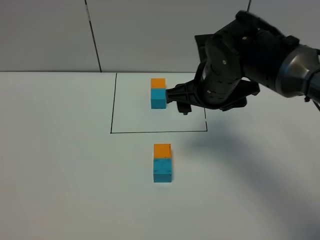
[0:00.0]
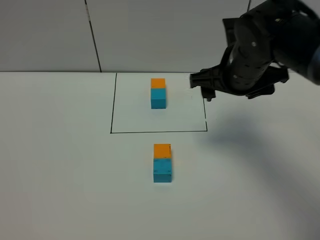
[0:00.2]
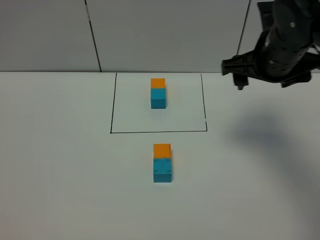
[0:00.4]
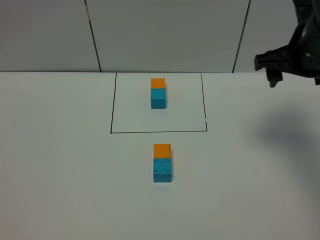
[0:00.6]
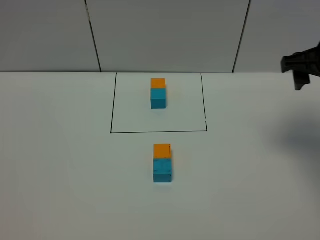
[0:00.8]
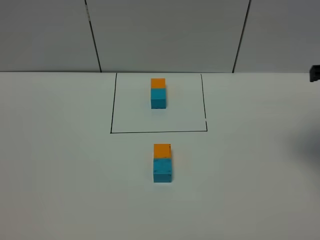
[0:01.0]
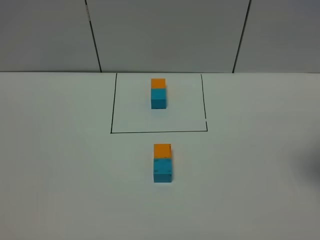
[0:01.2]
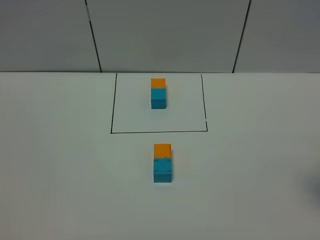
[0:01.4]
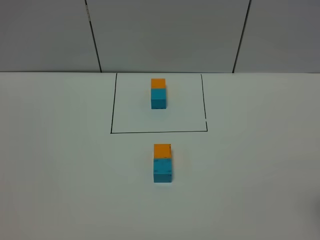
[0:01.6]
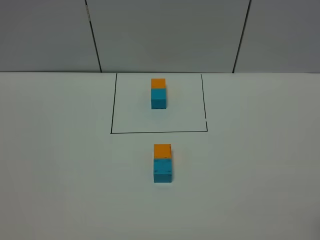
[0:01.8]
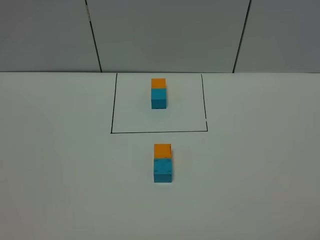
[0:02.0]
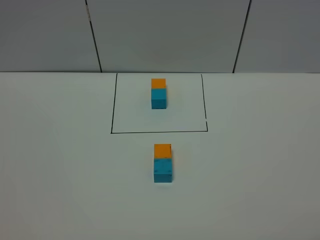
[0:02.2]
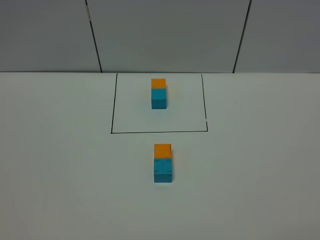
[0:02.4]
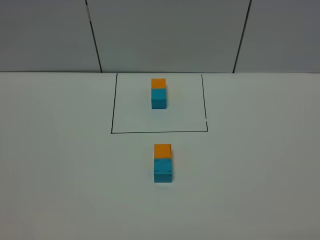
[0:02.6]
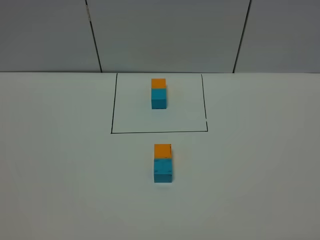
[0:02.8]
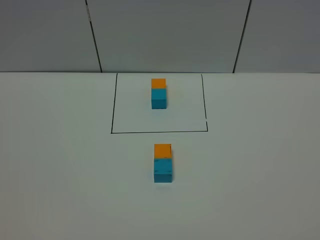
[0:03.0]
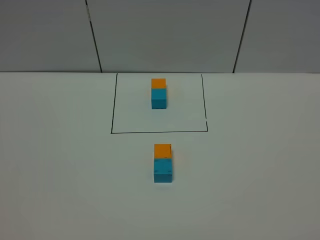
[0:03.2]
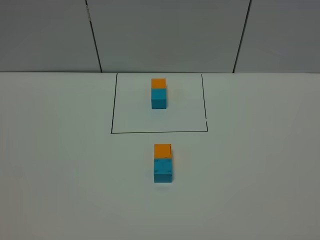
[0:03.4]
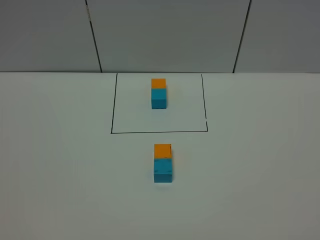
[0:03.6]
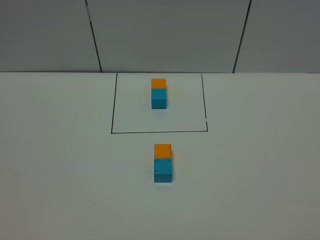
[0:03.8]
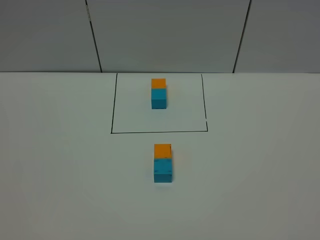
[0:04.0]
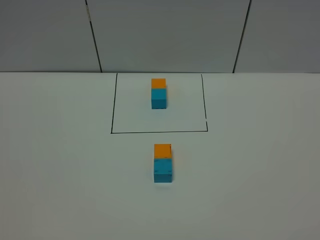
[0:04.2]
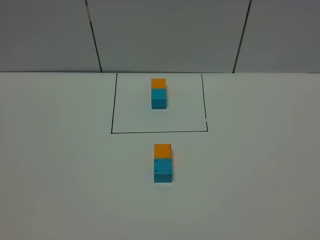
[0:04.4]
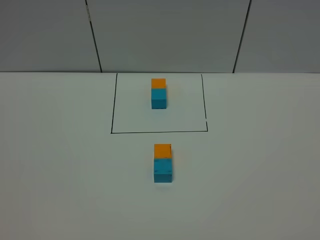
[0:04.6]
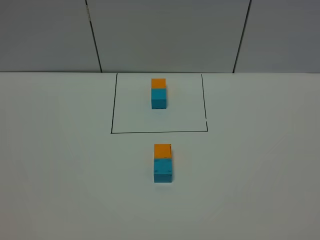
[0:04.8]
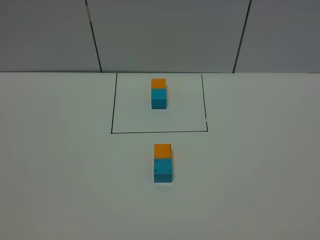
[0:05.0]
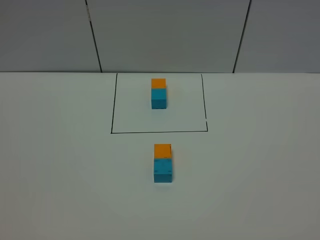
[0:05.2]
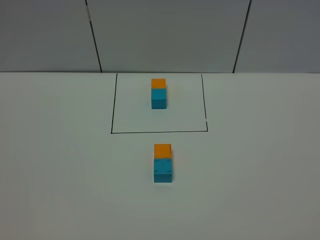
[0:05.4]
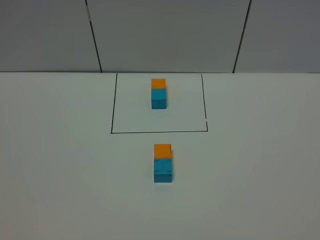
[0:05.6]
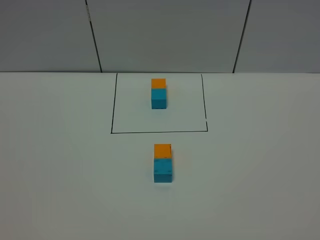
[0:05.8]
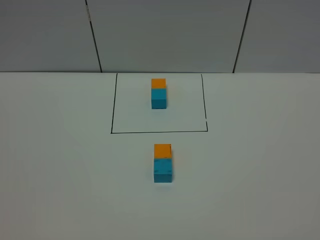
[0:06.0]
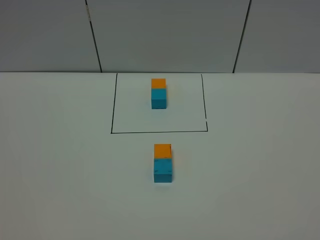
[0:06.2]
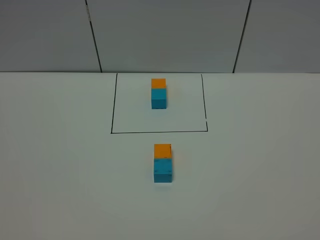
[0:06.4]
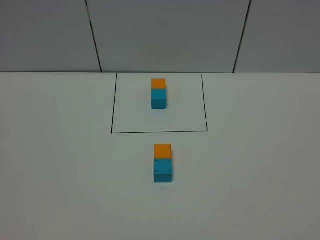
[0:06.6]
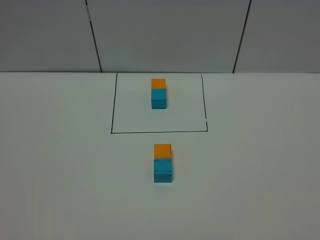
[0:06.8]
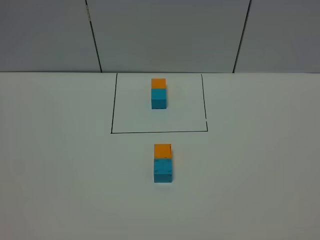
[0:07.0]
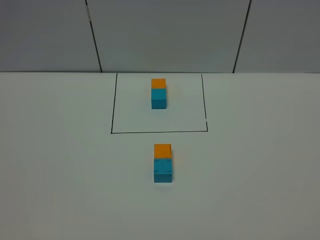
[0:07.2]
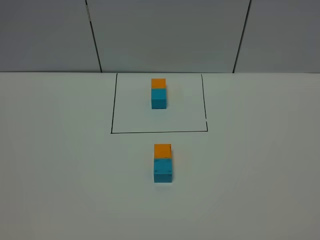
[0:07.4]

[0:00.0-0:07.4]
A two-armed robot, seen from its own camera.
Task of the whole recording: According to the building block template in front, assemble the scattered blocks together.
0:00.0 to 0:01.4: The right gripper goes some 25 cm to the right and backward.
0:04.4 to 0:07.4: Both grippers stay about where they are.

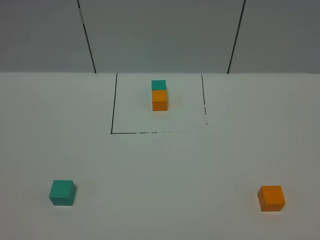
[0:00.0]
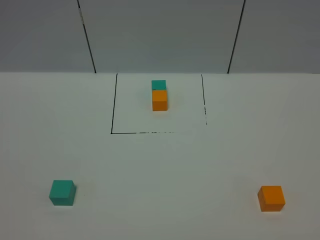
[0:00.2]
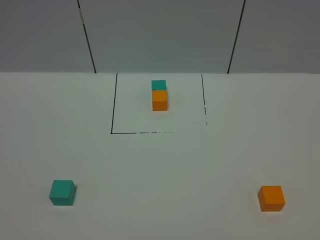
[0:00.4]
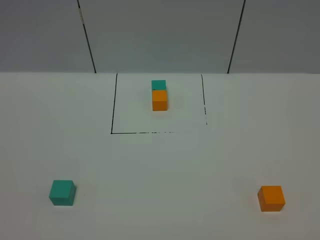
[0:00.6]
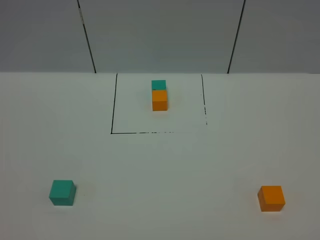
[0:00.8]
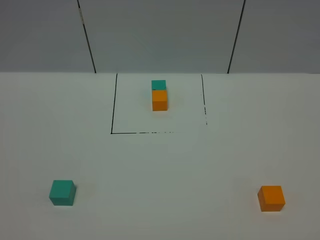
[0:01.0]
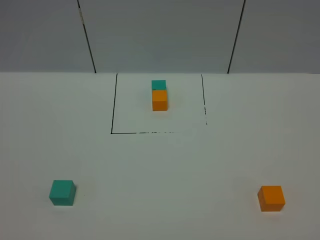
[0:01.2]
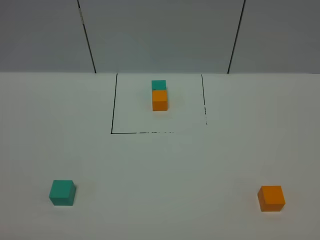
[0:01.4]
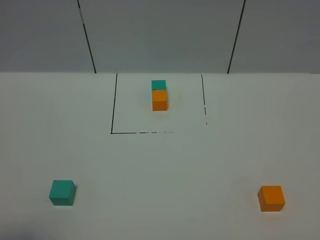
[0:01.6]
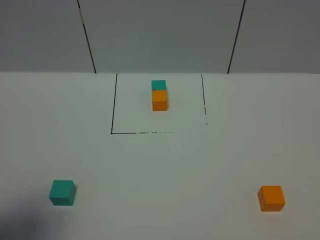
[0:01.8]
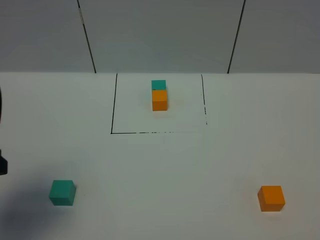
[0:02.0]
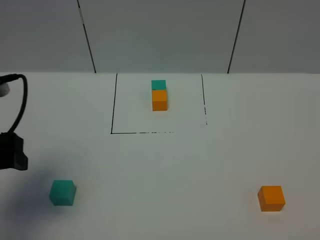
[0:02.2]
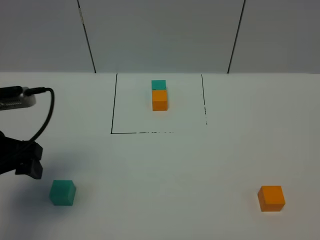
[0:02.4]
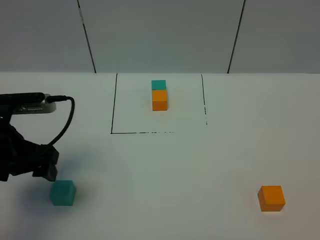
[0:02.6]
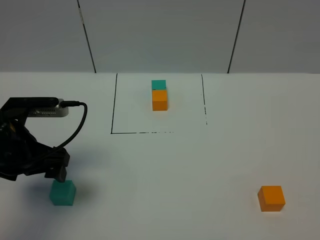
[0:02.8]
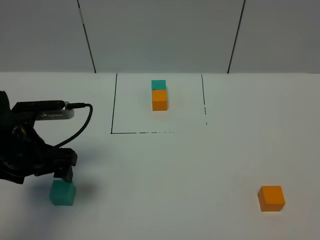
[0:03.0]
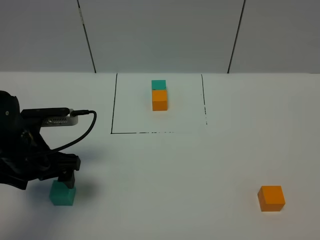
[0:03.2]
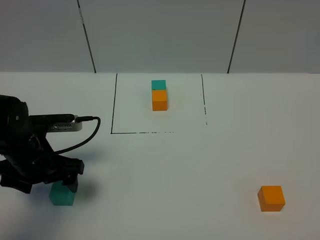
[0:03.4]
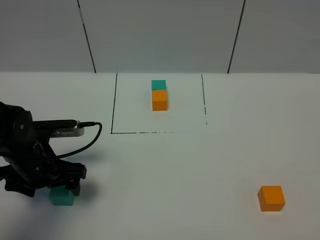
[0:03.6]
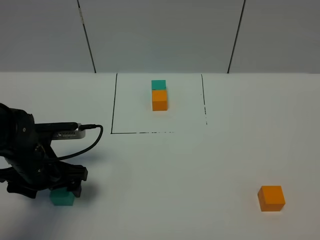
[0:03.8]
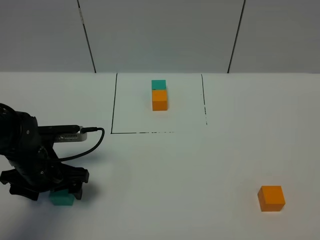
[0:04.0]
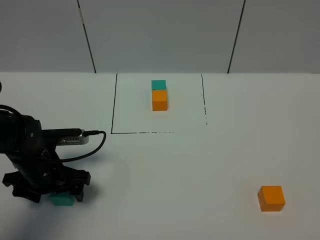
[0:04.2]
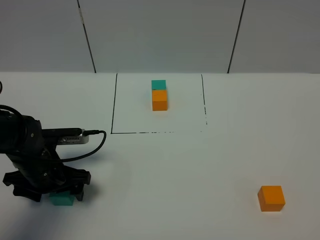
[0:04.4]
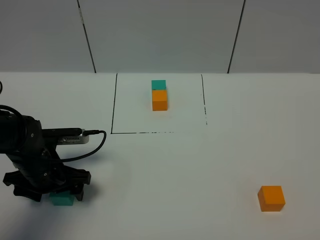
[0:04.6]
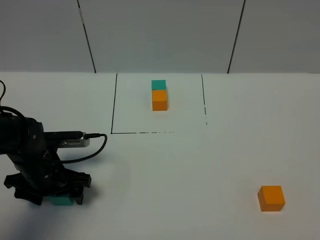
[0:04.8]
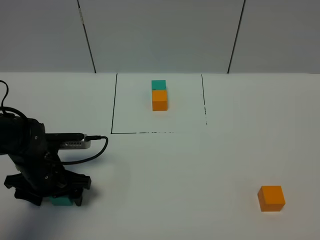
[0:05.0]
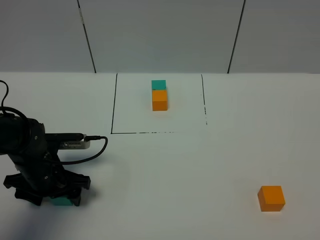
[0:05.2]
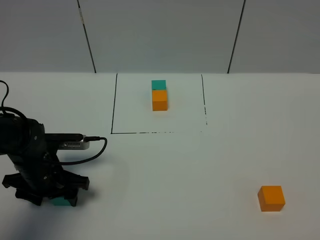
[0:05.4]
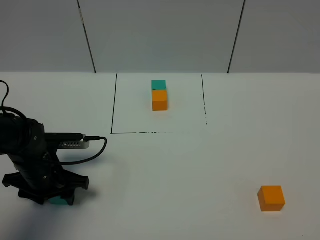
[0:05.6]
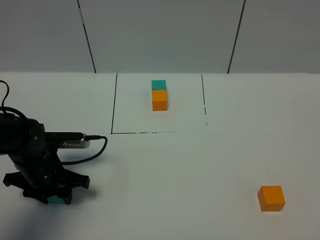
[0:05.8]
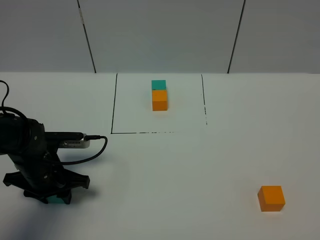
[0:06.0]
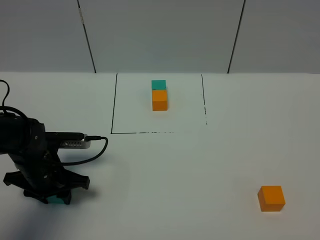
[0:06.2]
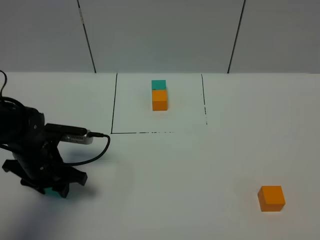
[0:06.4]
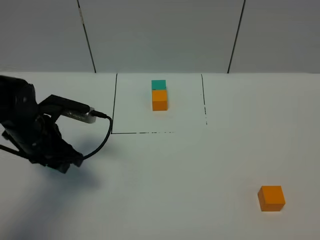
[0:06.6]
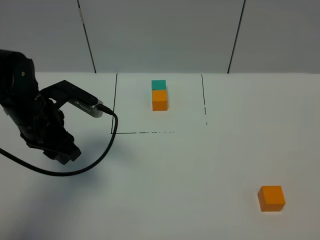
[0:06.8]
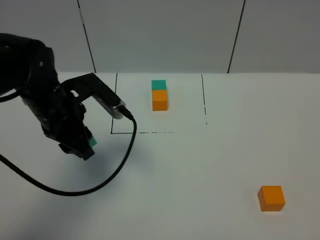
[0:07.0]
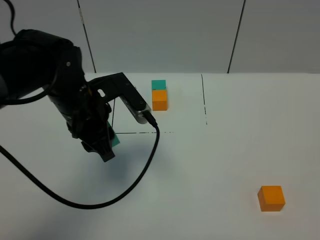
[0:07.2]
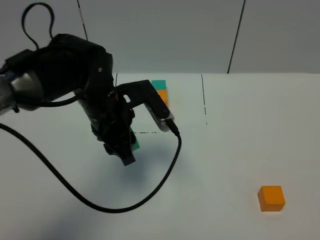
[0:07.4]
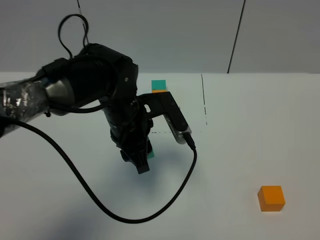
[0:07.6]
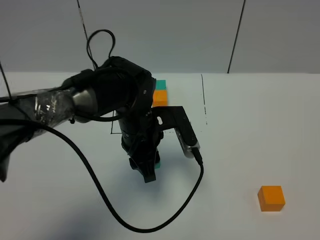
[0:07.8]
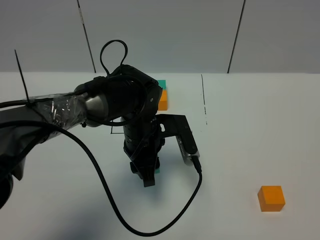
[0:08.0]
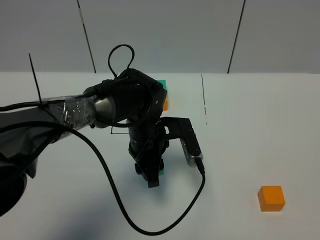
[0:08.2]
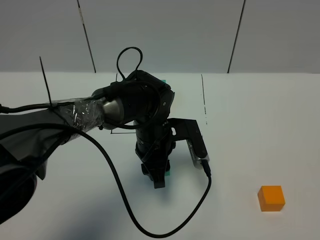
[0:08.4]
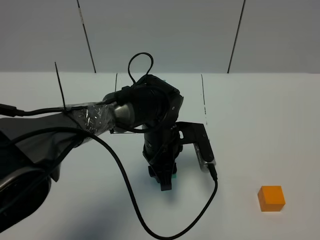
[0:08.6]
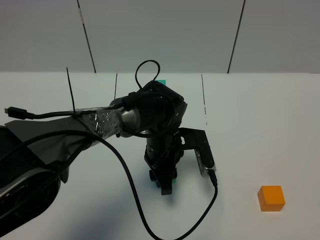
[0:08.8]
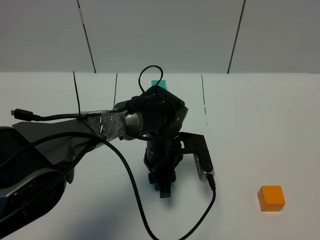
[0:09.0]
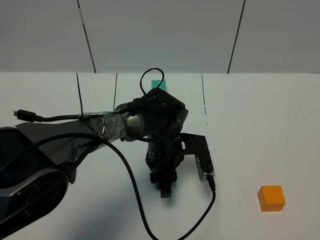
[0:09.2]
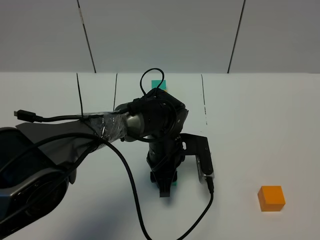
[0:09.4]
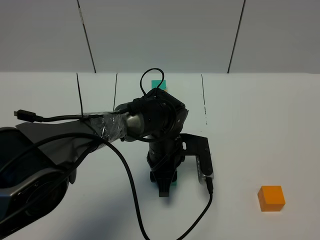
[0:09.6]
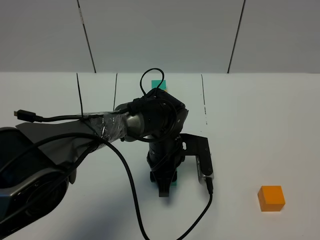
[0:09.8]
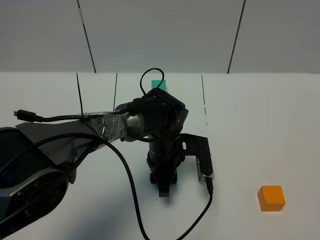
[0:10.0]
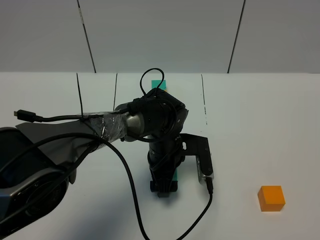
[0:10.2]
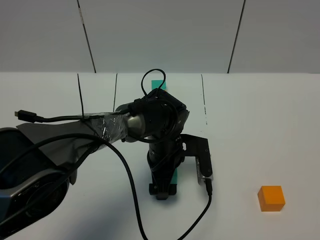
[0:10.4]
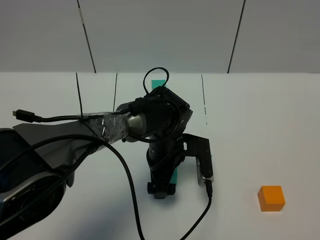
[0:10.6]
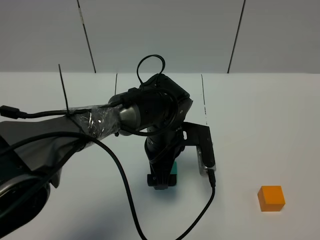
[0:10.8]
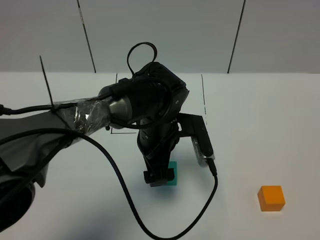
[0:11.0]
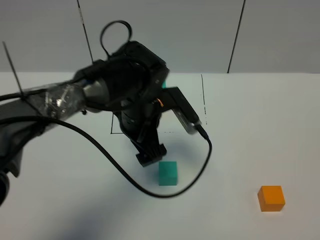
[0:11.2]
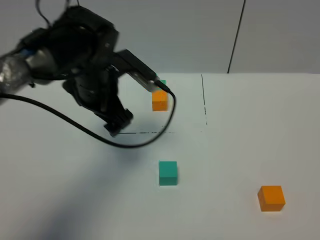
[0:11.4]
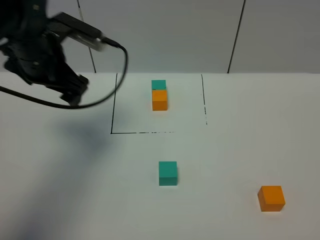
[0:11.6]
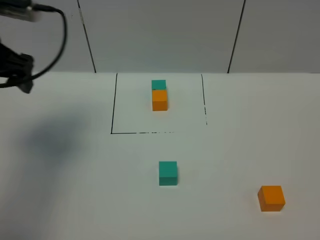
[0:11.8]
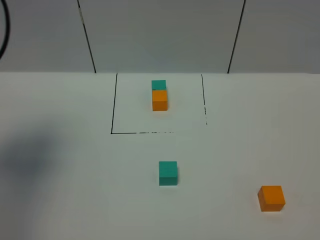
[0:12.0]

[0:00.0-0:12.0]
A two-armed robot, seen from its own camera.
Task of the whole recording: According to the building block template in front, assemble the scattered blocks together.
Step, 0:02.0 to 0:10.0: Put the green cube in the center of the table.
0:01.6 to 0:03.0: The left gripper heads forward and downward, covering about 25 cm.
0:03.0 to 0:04.4: The left gripper goes about 10 cm downward.
0:04.4 to 0:06.0: The left gripper closes.
0:06.0 to 0:07.6: The left gripper heads to the right and upward, covering approximately 20 cm.
0:07.6 to 0:09.0: The left gripper goes approximately 10 cm downward and to the right.
0:09.0 to 0:10.4: The left gripper opens.
0:10.4 to 0:12.0: The left gripper shifts some 40 cm to the left and upward.

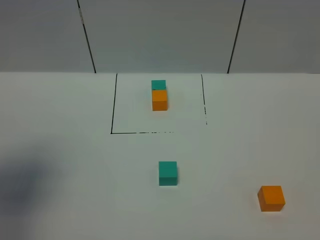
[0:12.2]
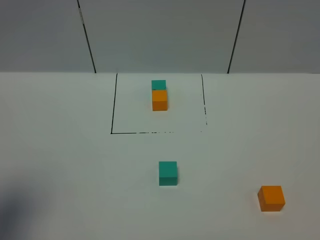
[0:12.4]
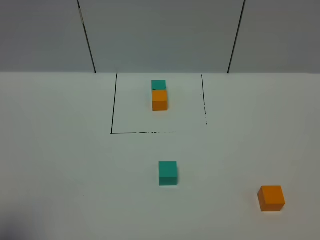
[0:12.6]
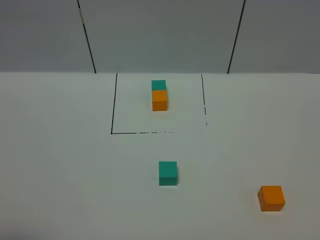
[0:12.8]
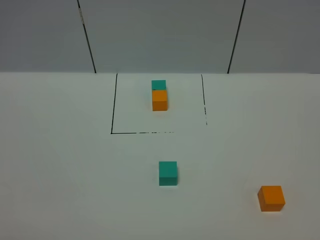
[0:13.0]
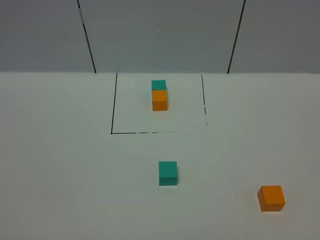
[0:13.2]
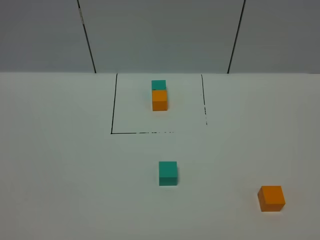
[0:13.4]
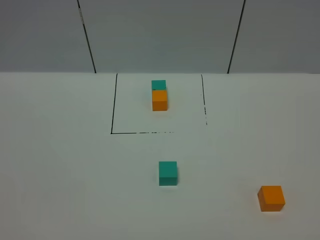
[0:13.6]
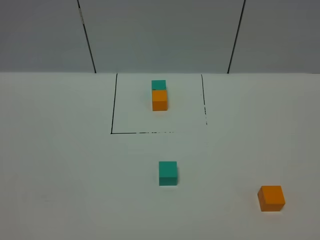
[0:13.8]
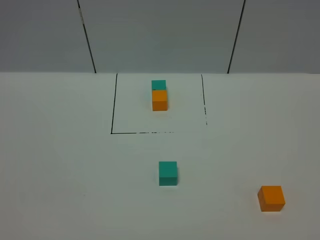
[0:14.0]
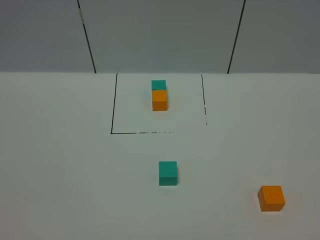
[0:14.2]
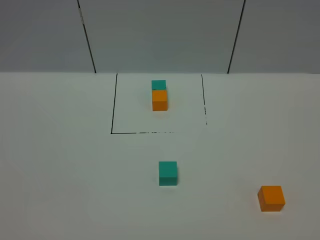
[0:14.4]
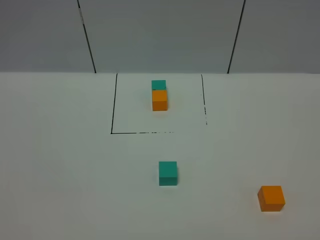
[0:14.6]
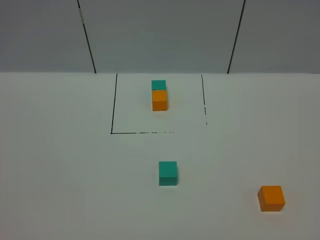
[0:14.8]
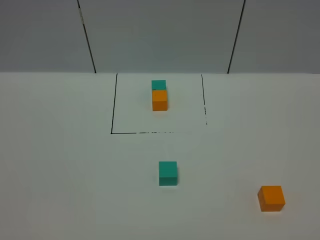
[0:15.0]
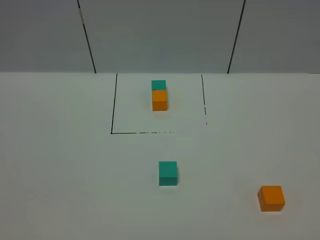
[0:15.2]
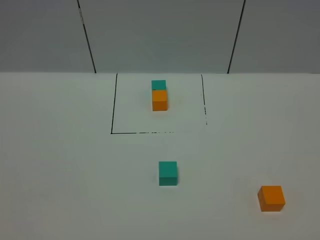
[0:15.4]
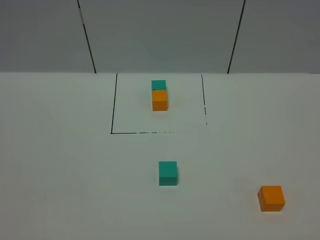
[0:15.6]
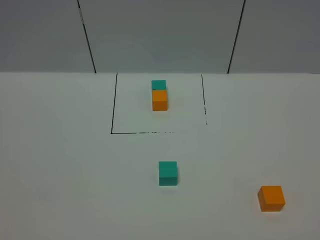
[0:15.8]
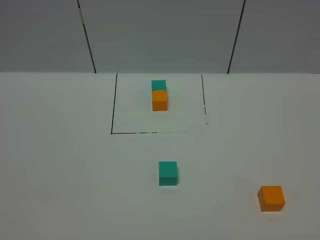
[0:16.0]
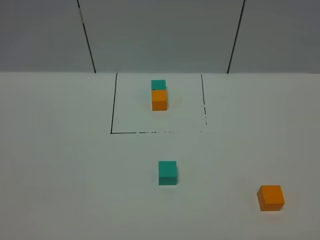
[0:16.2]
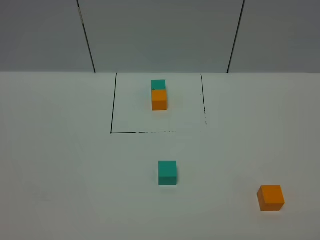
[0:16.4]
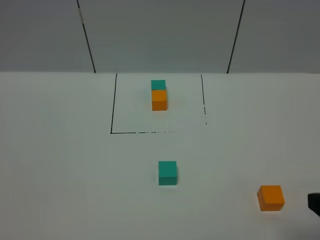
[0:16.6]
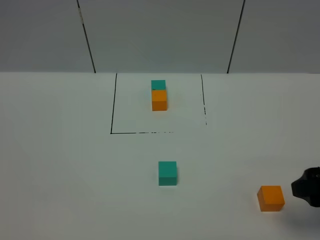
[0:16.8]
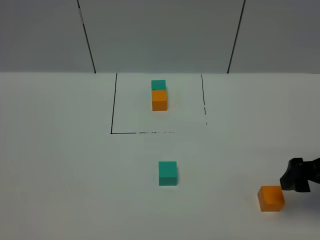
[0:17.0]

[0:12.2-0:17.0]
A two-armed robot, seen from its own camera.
Task of the whole recording: According to the building block template in front, assemble the scattered blocks together.
0:12.2 to 0:13.8: The left gripper moves backward and downward, about 25 cm.
0:15.4 to 0:17.0: The right gripper heads forward, covering roughly 25 cm, and opens its fingers.
